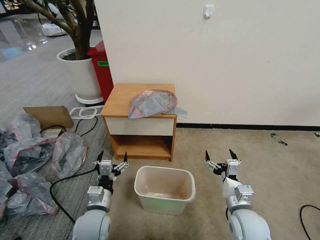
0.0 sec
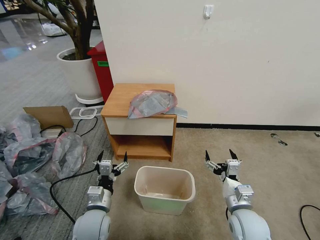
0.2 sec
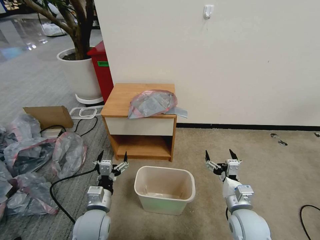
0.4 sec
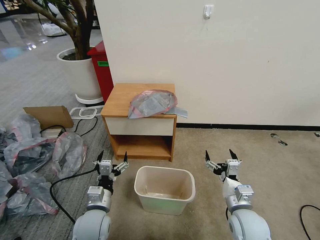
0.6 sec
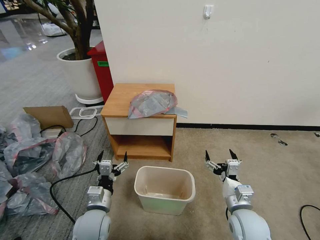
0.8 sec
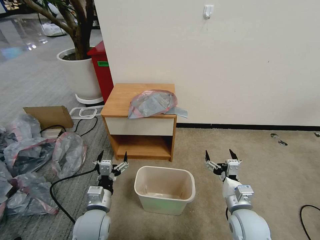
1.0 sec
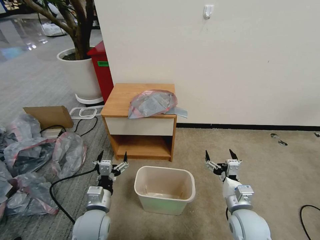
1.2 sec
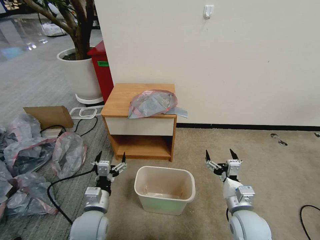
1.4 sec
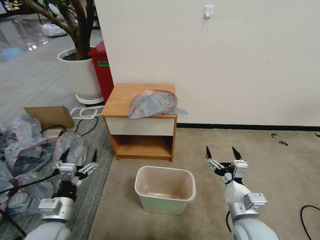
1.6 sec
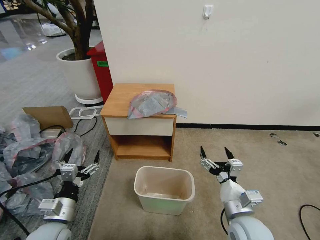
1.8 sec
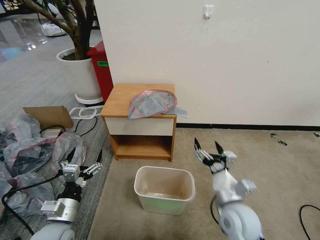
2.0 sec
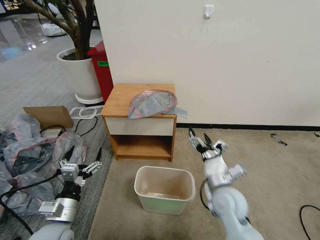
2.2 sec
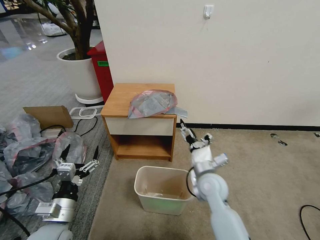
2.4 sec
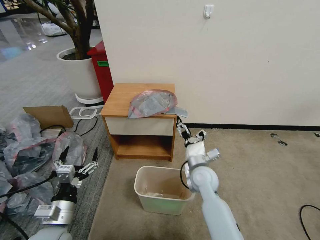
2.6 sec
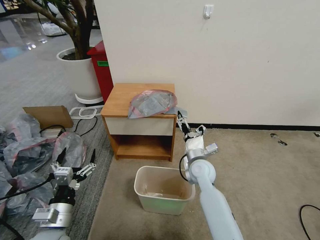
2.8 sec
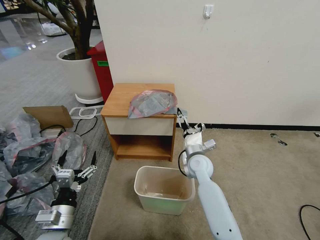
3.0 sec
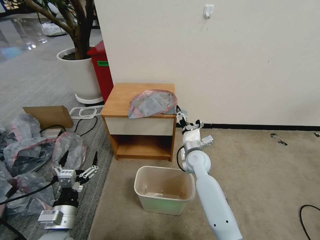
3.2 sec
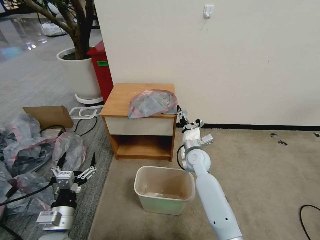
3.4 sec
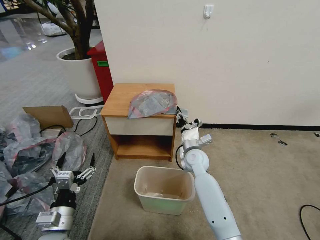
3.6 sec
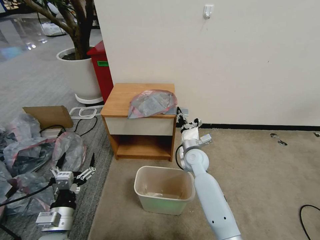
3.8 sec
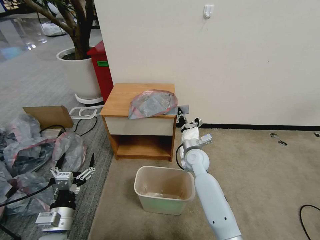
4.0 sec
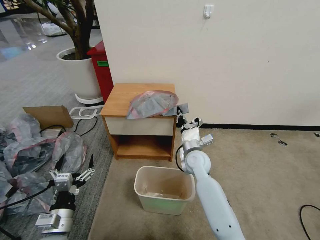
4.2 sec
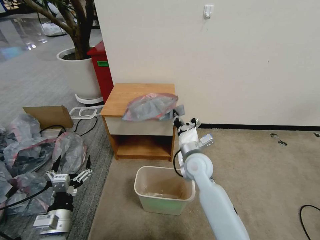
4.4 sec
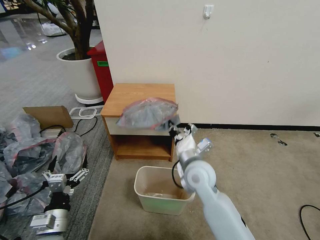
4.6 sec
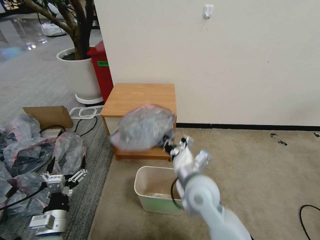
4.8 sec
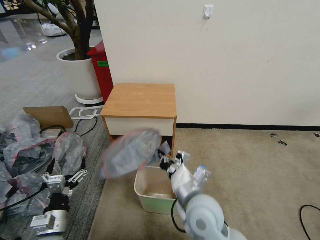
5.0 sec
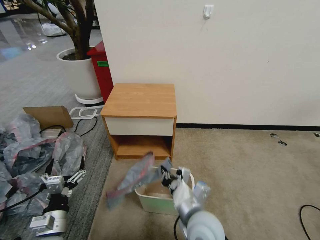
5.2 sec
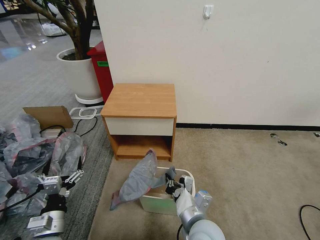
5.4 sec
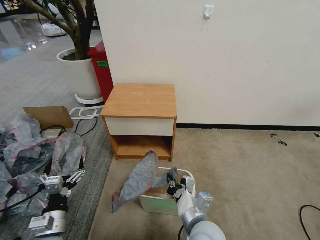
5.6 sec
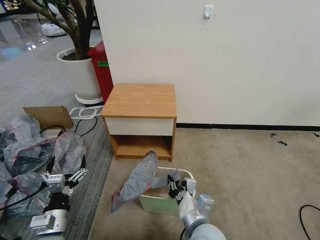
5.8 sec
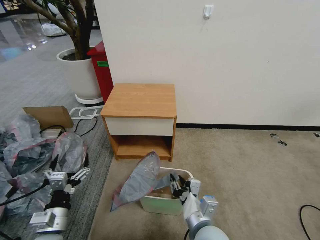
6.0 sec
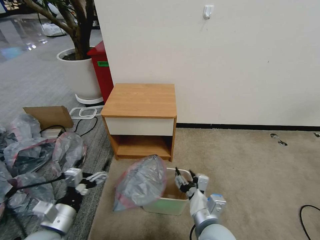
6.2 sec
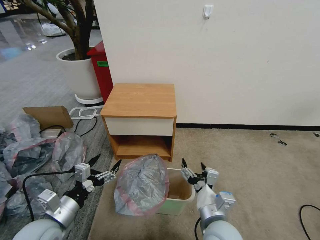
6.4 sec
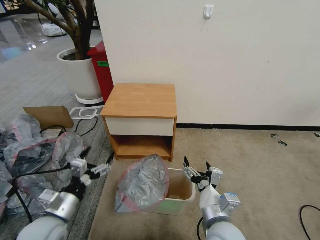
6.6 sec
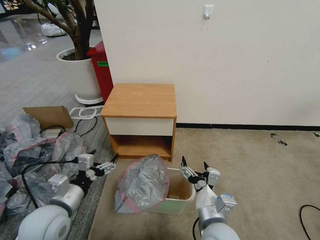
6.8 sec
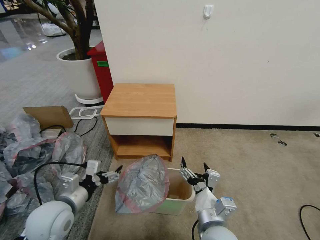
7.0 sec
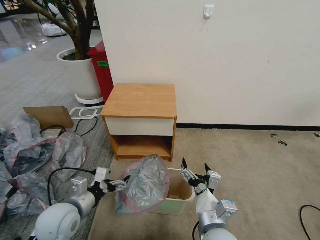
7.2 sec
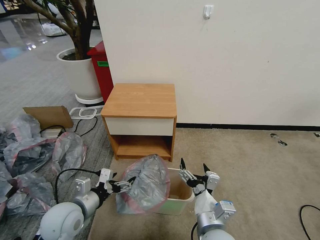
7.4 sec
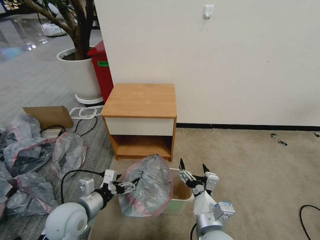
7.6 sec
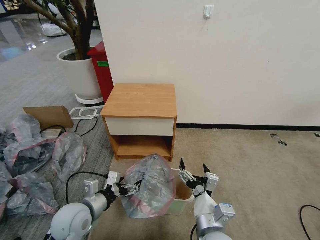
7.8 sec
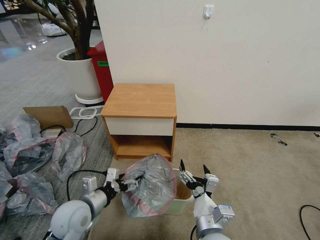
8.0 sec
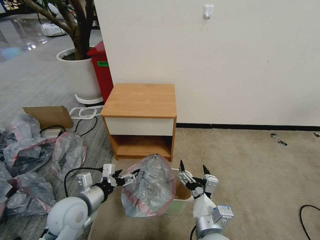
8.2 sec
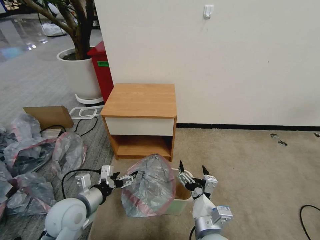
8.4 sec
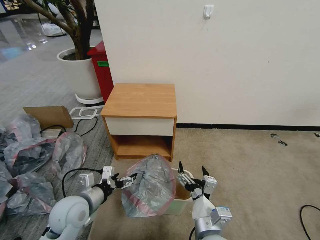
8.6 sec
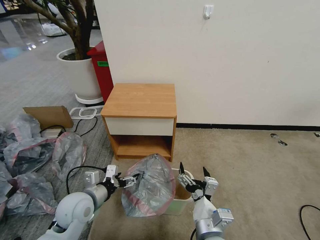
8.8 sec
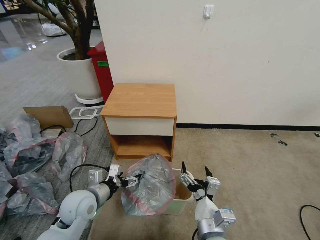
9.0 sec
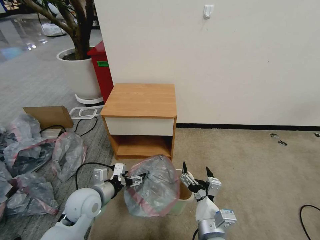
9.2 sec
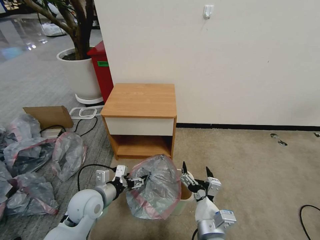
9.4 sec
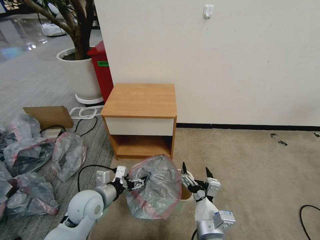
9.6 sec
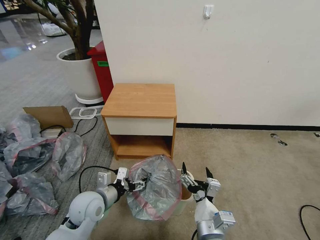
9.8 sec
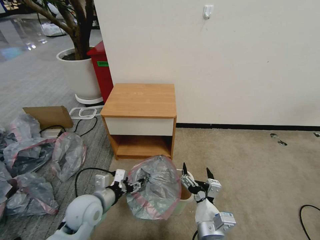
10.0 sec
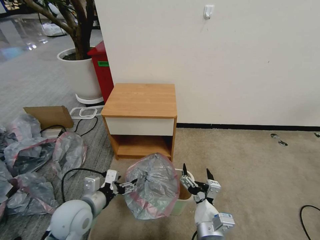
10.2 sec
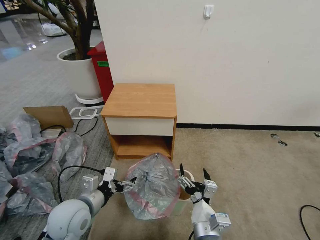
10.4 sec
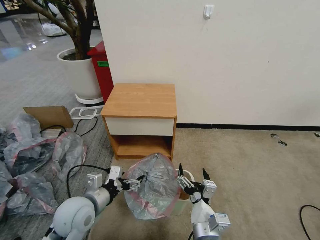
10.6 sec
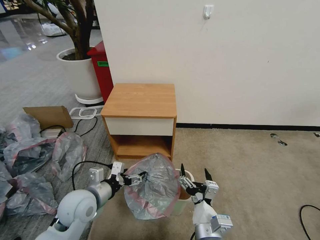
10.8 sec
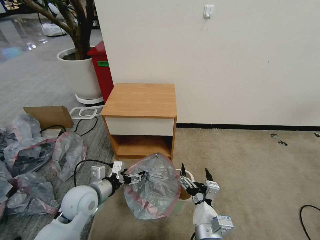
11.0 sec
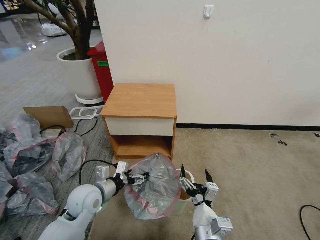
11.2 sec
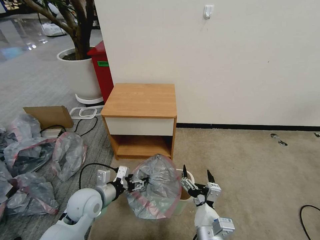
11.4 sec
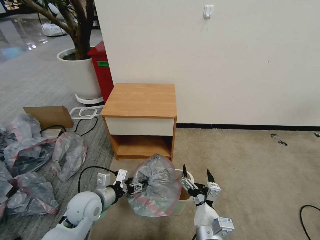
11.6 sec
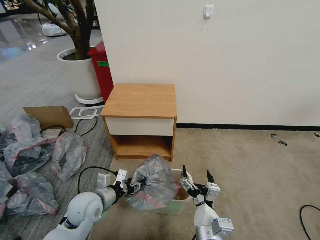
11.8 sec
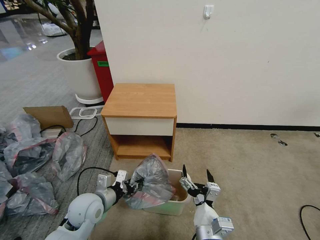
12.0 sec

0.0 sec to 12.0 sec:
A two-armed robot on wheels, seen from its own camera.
Task of the whole recording: Pick up the garbage bag from the table and place it over the trash can.
1.6 sec to 3.0 sec: The right gripper travels forward and to the left by some 25 cm.
3.0 sec to 4.4 sec: The right gripper travels upward by about 5 cm, and closes.
4.4 sec to 6.0 sec: The right gripper travels backward by approximately 20 cm, and opens its fingers.
6.0 sec to 7.6 sec: The right gripper opens; the left gripper moves forward, approximately 5 cm.
7.6 sec to 9.0 sec: There are only small adjustments of the grippers.
9.0 sec to 10.4 sec: The left gripper shifts by roughly 5 cm.
10.4 sec to 12.0 sec: The left gripper heads downward, covering roughly 5 cm, and closes.

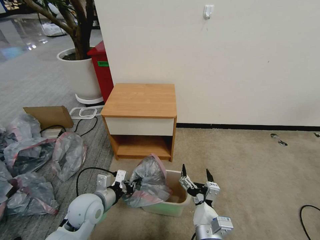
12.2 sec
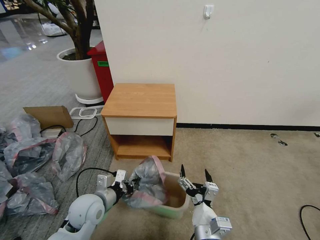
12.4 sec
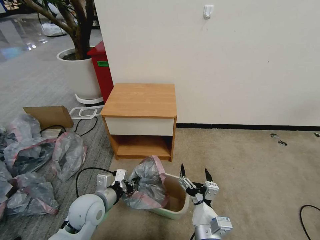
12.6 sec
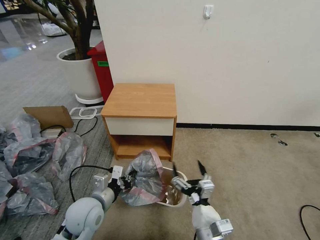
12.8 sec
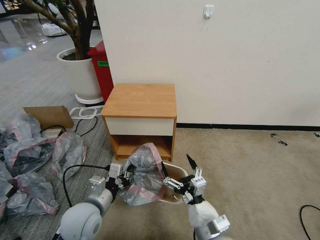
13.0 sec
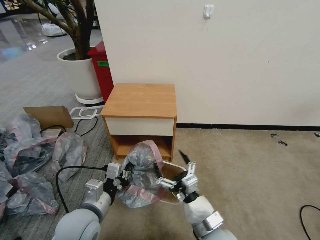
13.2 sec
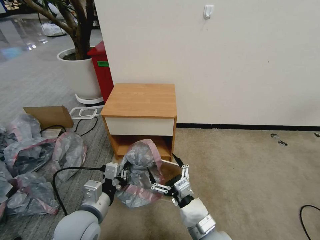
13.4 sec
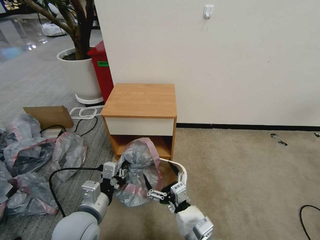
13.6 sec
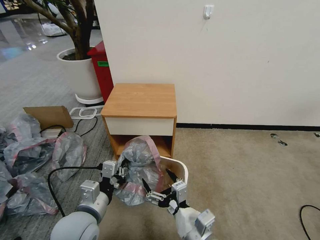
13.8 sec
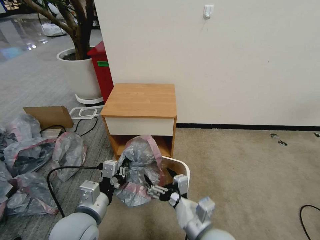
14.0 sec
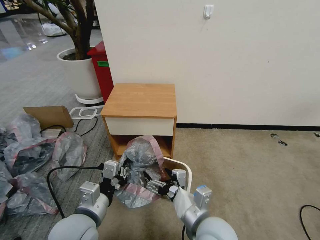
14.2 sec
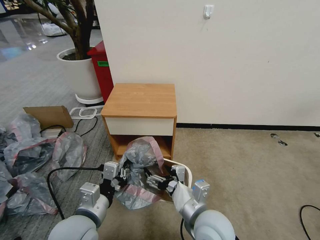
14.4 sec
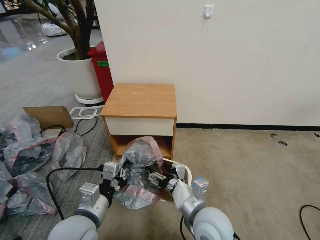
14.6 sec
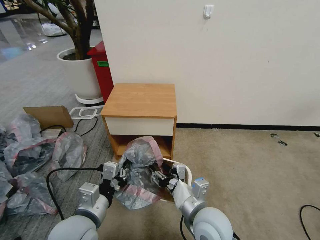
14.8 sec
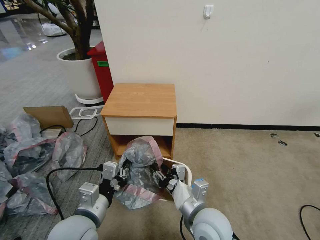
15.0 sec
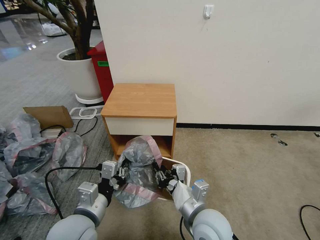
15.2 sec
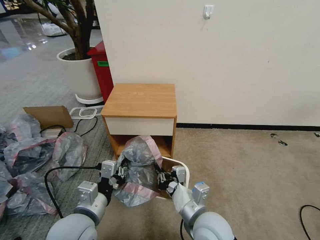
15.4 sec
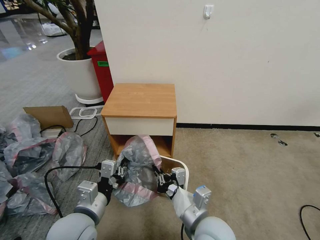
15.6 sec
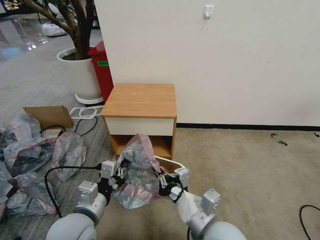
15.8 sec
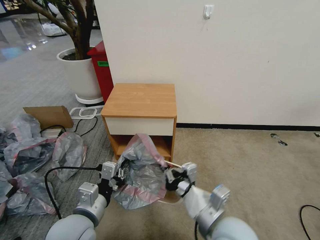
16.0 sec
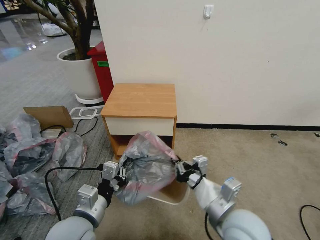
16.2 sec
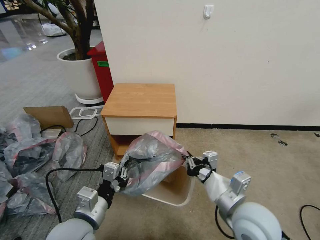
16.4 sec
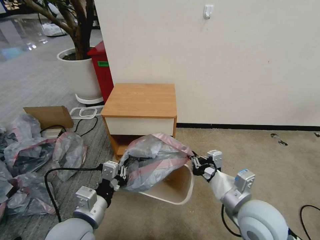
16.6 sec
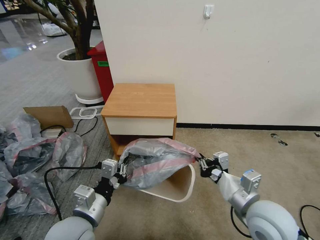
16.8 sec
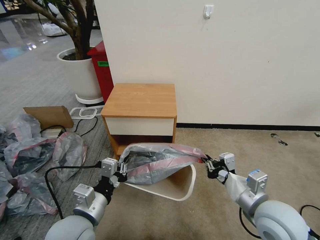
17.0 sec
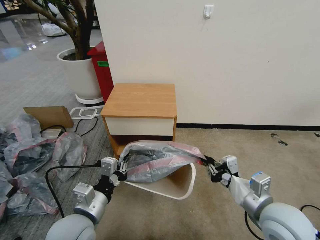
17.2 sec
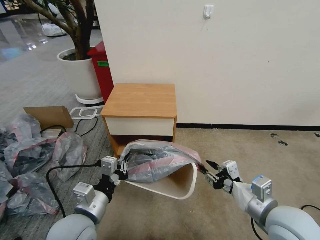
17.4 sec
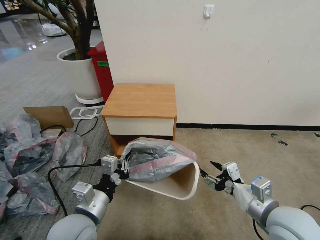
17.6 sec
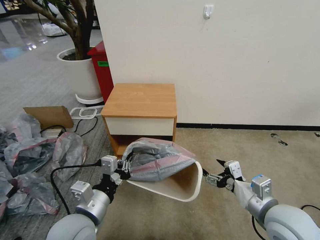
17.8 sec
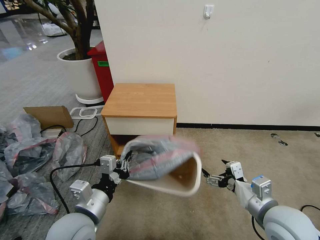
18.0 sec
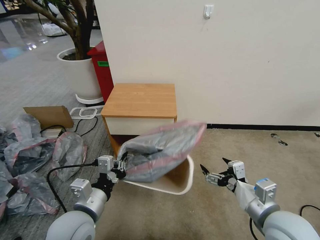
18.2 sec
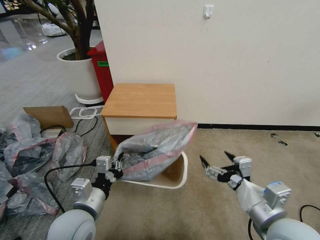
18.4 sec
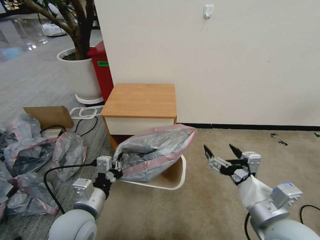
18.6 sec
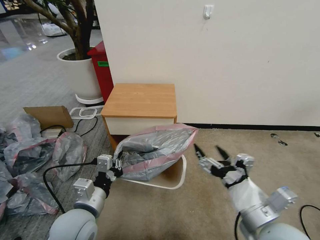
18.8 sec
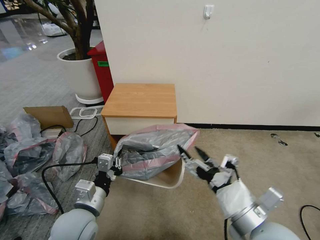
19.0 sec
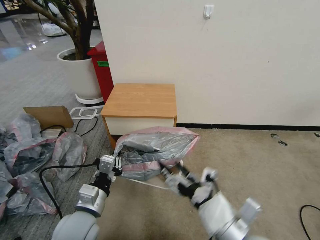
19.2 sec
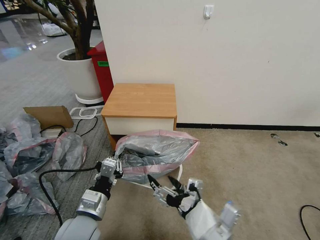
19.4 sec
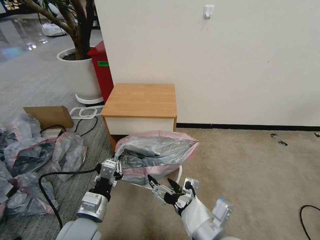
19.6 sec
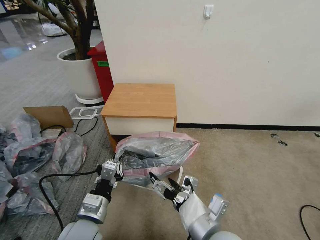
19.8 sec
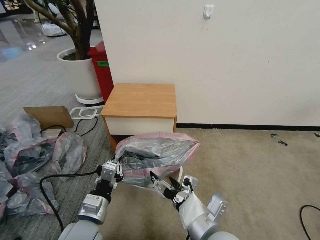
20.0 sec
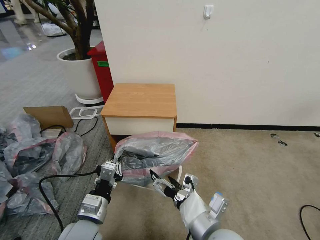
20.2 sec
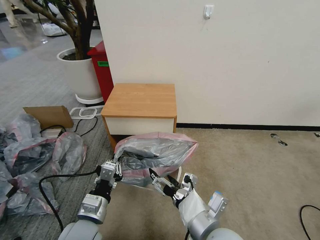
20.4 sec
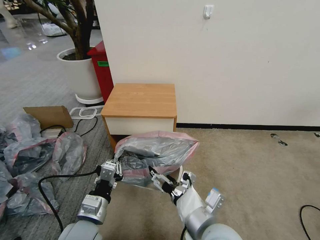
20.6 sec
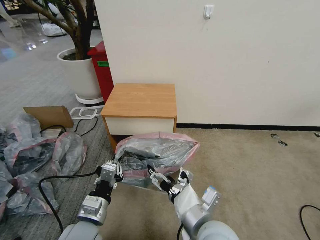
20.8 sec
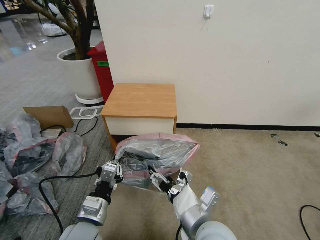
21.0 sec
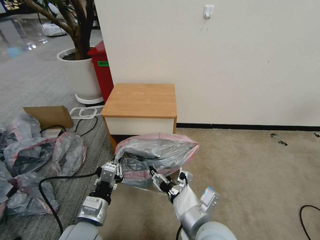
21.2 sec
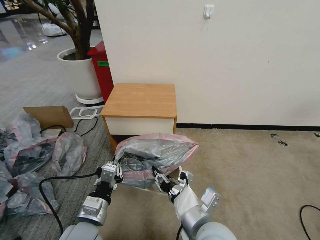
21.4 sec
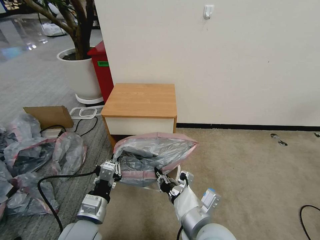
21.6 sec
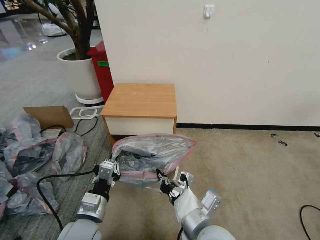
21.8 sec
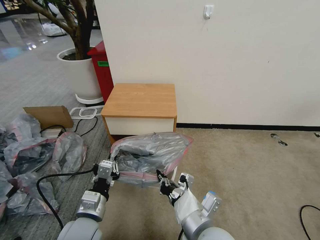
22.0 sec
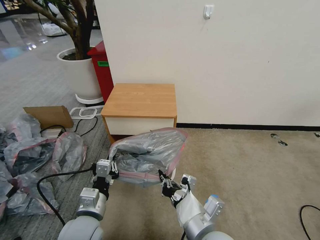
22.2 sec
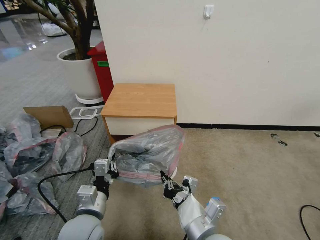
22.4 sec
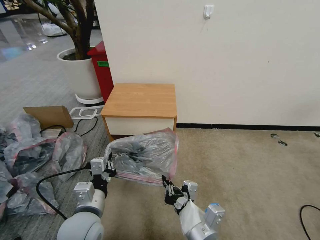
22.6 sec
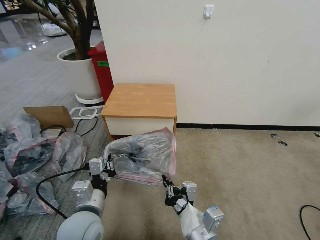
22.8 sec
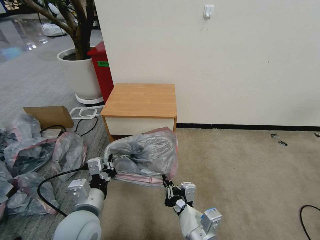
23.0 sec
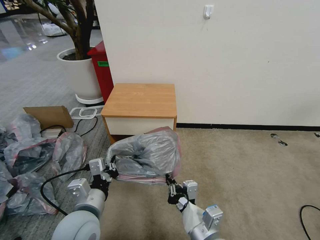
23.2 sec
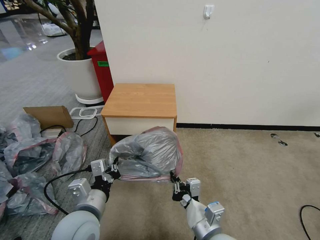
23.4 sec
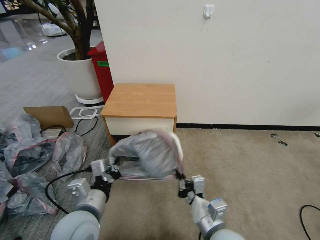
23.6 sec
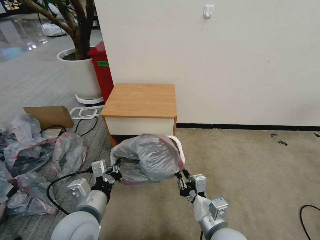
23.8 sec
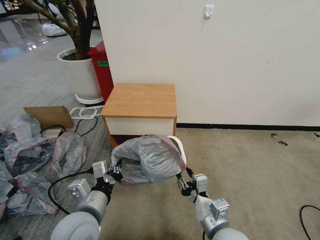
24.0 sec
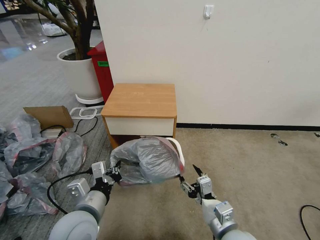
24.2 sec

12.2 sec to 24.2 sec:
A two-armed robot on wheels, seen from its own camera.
Task of the whole recording: Pick up the garbage bag from the table and place it over the trash can.
12.2 sec to 13.8 sec: The left gripper shifts about 10 cm upward and backward. Meanwhile the right gripper goes some 5 cm upward.
13.8 sec to 15.2 sec: The right gripper moves forward, roughly 5 cm, and closes.
15.2 sec to 16.6 sec: The right gripper goes approximately 10 cm to the right and upward.
16.6 sec to 18.2 sec: The right gripper shifts some 5 cm to the right, and opens up.
18.2 sec to 19.8 sec: The right gripper travels to the left by roughly 15 cm.
19.8 sec to 21.2 sec: The right gripper closes its fingers.
21.2 sec to 22.6 sec: The right gripper closes its fingers.
22.6 sec to 24.2 sec: The right gripper goes some 10 cm to the right and downward, and opens up.
